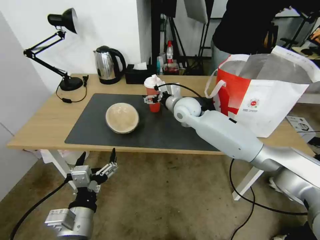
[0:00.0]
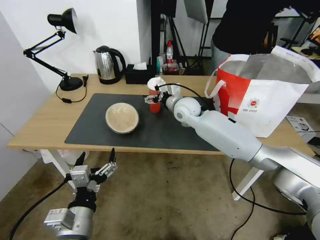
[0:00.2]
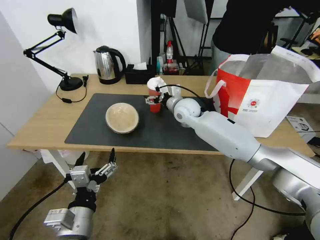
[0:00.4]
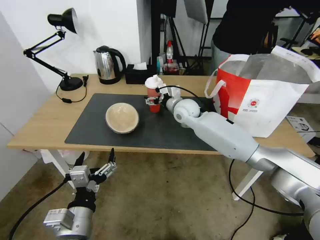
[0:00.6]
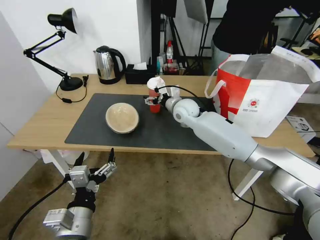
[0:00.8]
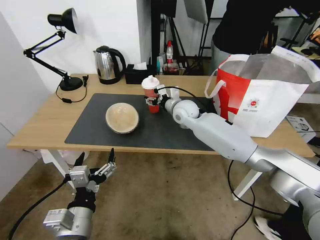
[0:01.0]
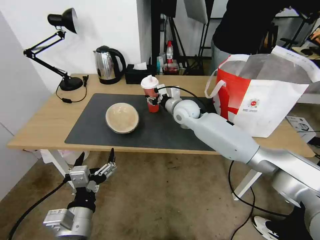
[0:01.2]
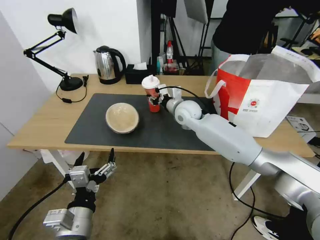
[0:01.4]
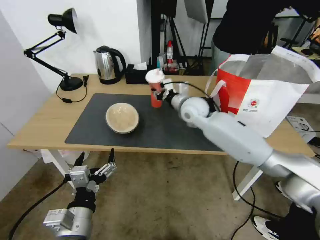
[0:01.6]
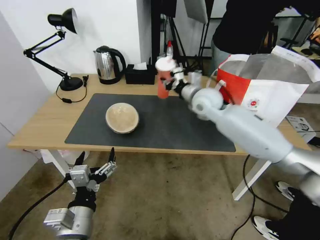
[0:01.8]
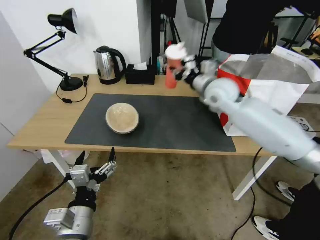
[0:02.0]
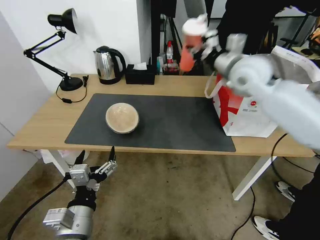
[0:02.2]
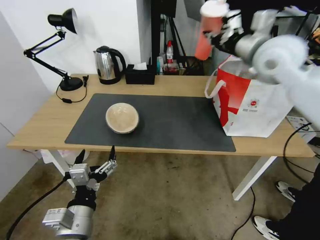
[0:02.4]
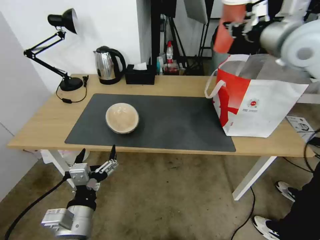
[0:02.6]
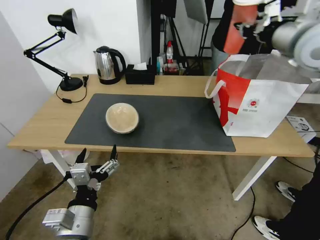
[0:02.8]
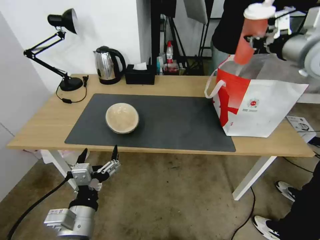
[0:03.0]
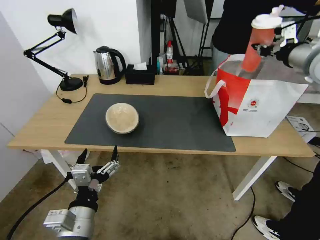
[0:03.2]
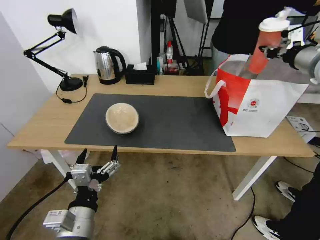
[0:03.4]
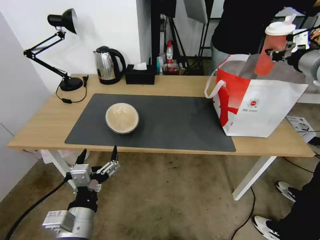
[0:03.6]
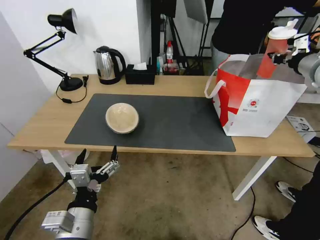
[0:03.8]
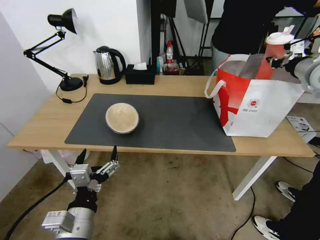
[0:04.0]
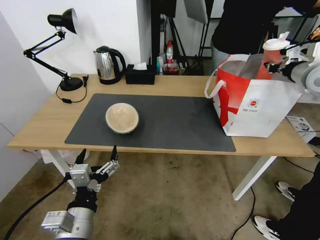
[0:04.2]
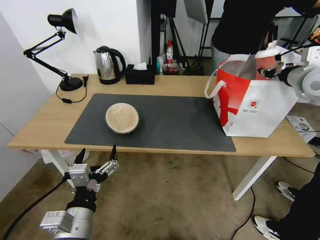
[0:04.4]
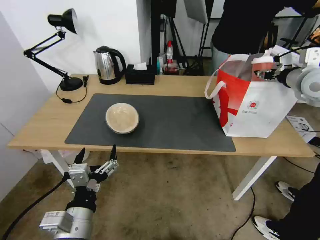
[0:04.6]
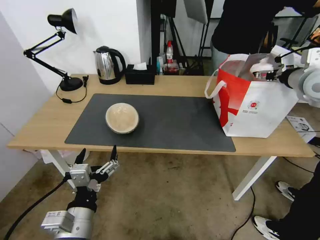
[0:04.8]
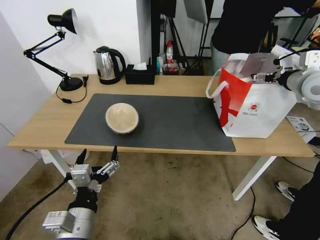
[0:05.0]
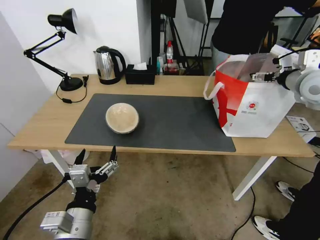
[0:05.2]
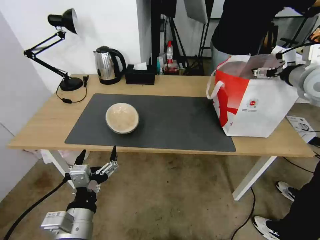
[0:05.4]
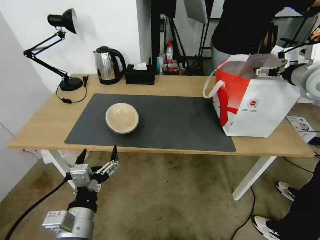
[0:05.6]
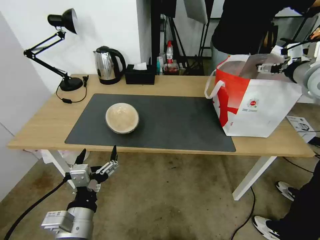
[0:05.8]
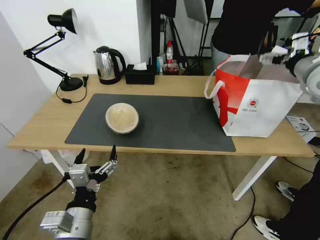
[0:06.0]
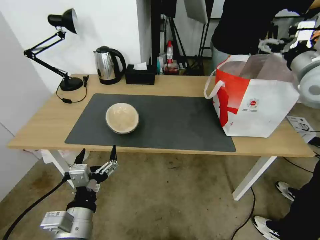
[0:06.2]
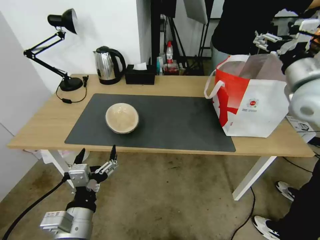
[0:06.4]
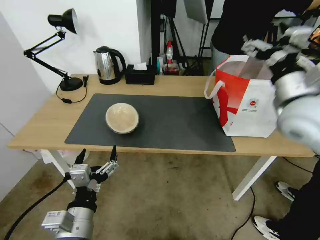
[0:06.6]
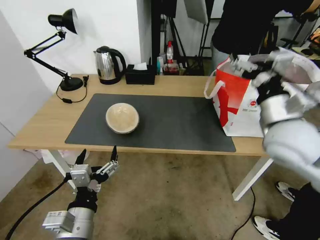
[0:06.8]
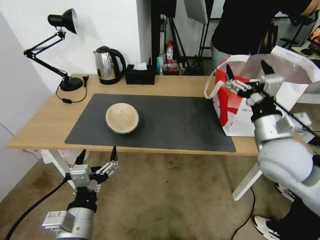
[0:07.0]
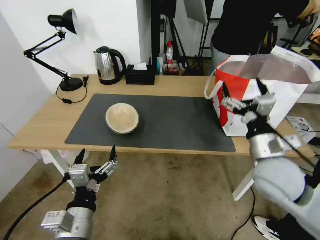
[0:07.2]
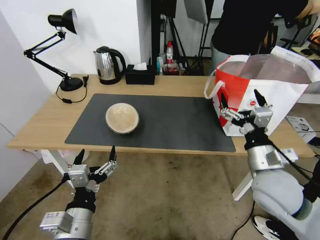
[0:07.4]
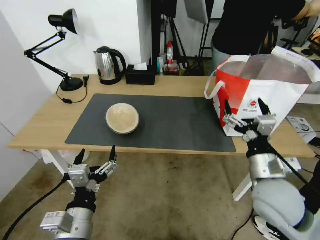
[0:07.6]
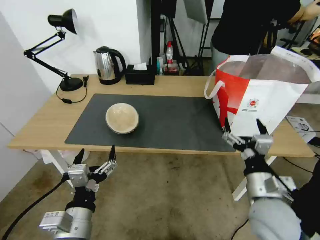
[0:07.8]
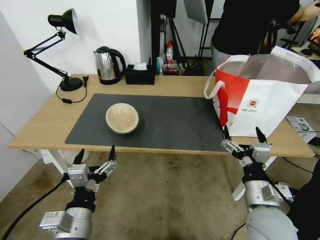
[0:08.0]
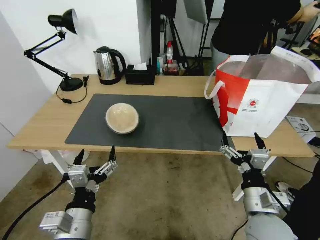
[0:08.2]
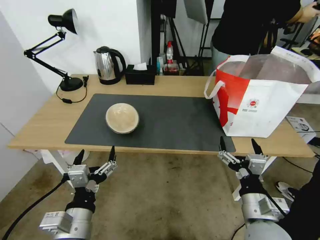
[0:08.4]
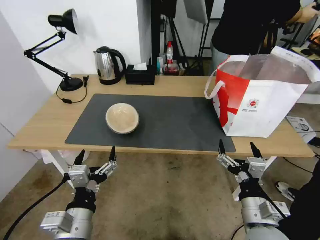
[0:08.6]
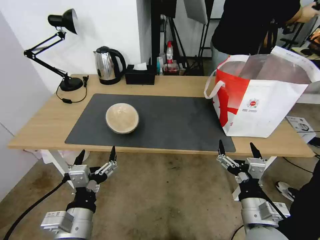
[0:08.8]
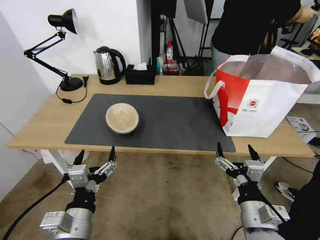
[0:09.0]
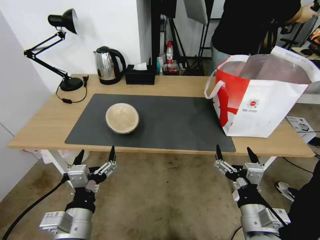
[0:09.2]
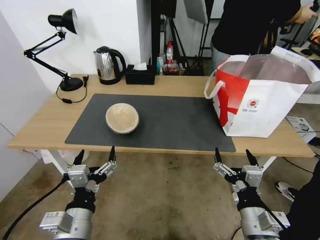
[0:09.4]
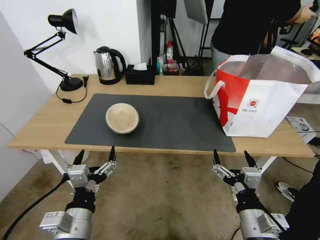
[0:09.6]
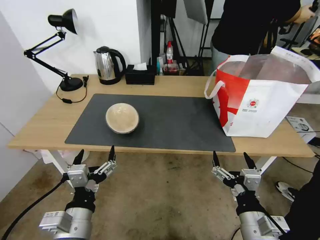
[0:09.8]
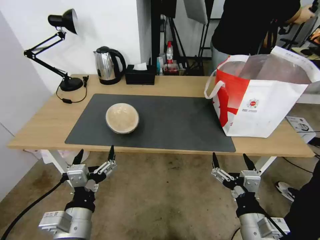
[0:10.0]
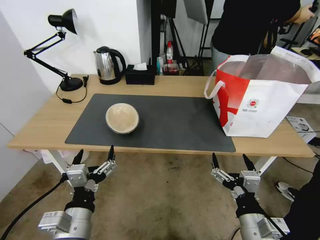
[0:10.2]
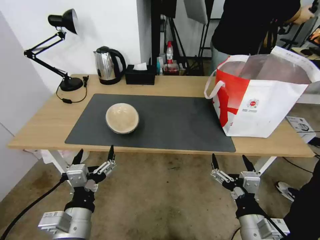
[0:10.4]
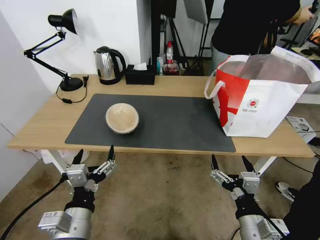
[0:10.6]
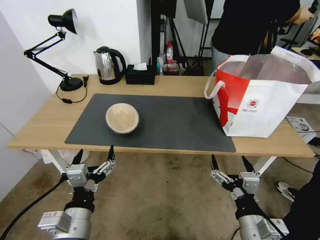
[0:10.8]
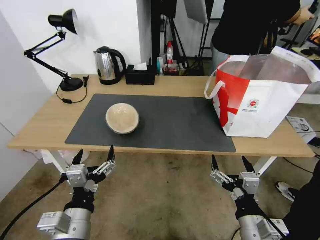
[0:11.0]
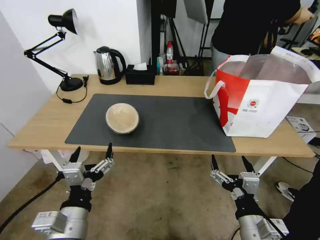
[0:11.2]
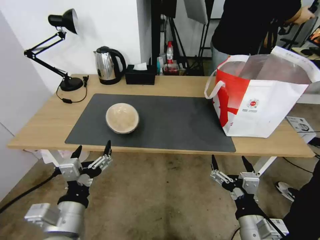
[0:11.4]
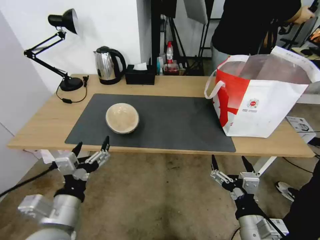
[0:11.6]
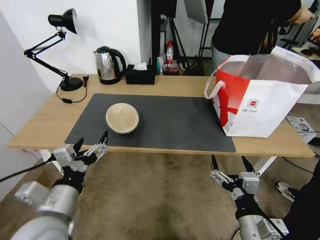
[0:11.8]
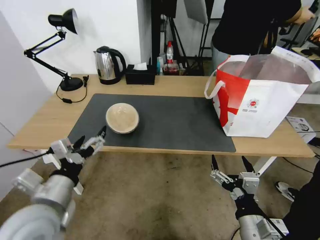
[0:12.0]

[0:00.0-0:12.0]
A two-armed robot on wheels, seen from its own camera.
Task of the whole recording: Pick up the trash from the table and place it into the takeout bag.
0:00.0 to 0:01.6: The right gripper closes.
0:01.6 to 0:03.0: The right gripper shifts approximately 35 cm to the right and upward.
0:03.0 to 0:04.4: The right gripper shifts roughly 10 cm downward and to the right.
0:04.4 to 0:06.0: The right gripper opens.
0:06.0 to 0:07.6: The right gripper goes about 35 cm downward, backward and to the left.
0:07.6 to 0:09.0: The right gripper moves backward and downward, about 10 cm.
0:09.0 to 0:10.4: The grippers make only small movements.
0:10.4 to 0:12.0: The left gripper goes about 10 cm upward, to the left and forward.

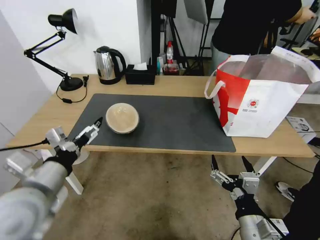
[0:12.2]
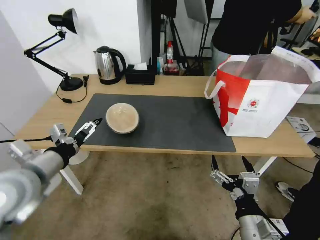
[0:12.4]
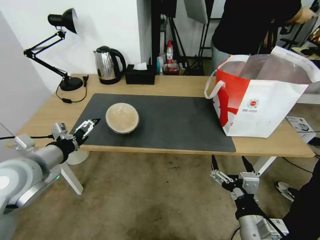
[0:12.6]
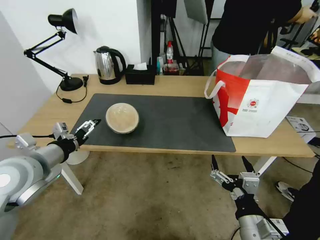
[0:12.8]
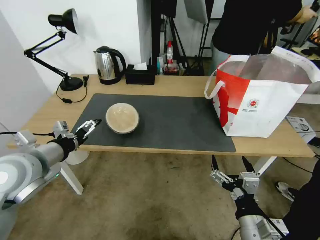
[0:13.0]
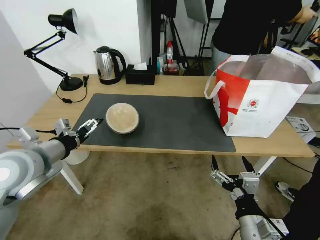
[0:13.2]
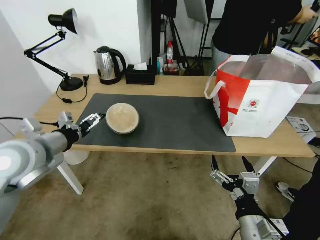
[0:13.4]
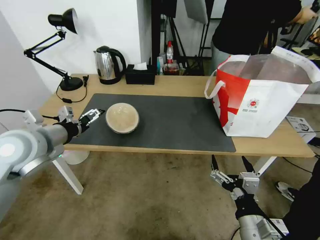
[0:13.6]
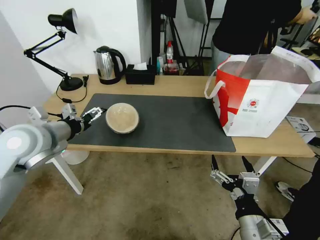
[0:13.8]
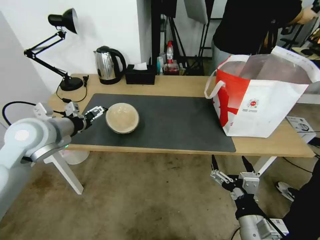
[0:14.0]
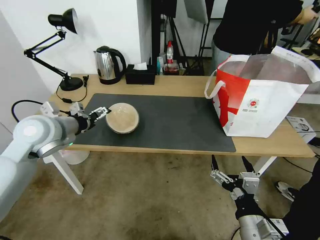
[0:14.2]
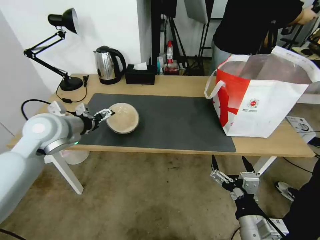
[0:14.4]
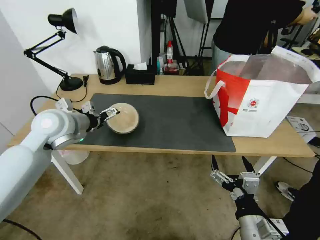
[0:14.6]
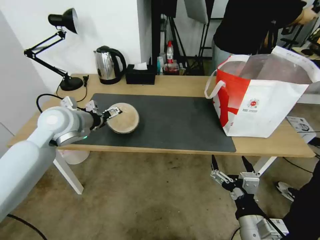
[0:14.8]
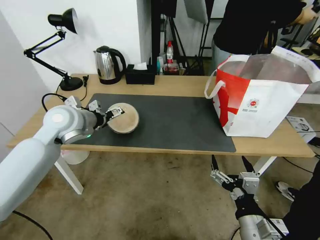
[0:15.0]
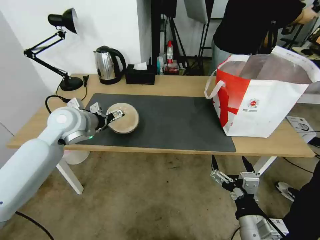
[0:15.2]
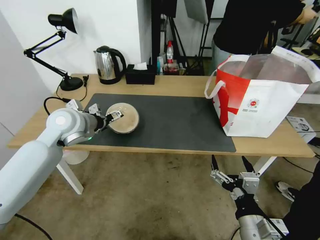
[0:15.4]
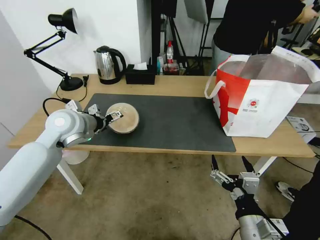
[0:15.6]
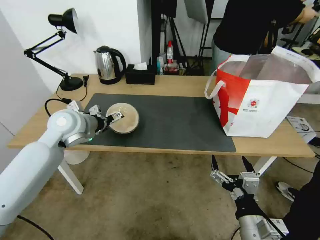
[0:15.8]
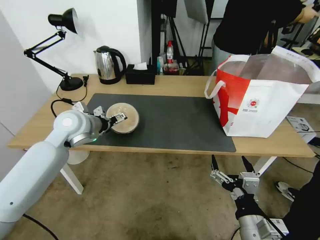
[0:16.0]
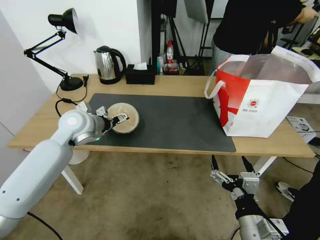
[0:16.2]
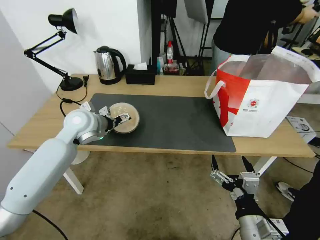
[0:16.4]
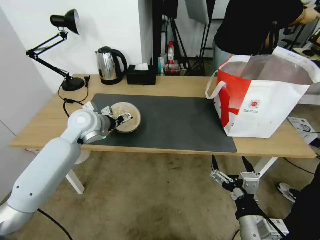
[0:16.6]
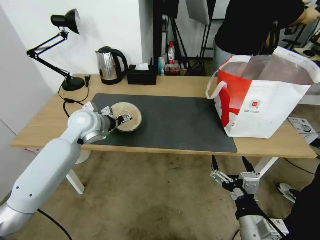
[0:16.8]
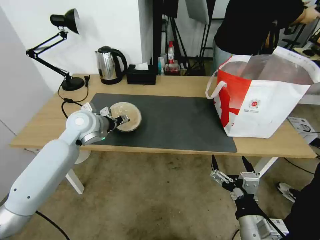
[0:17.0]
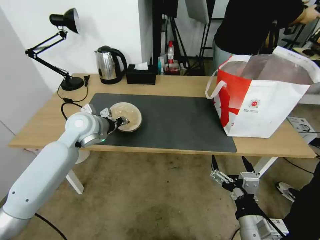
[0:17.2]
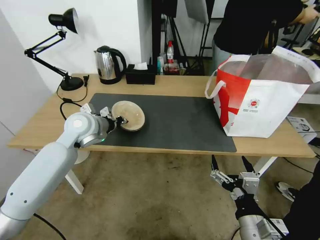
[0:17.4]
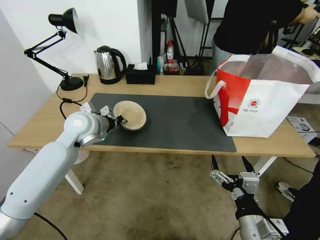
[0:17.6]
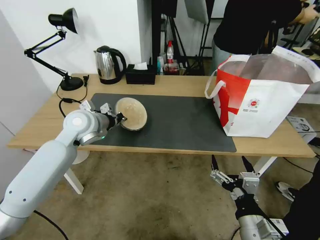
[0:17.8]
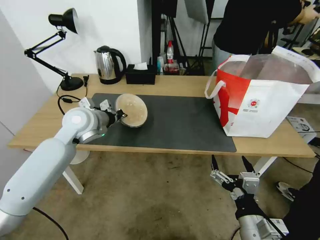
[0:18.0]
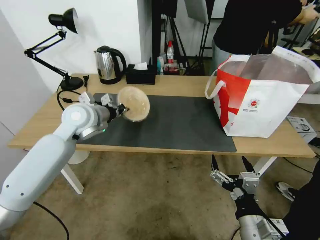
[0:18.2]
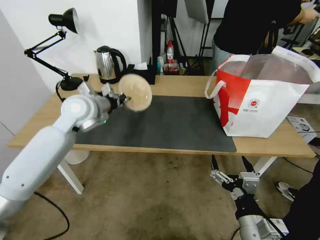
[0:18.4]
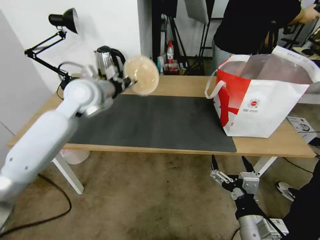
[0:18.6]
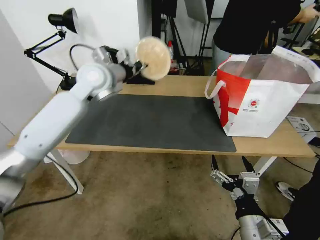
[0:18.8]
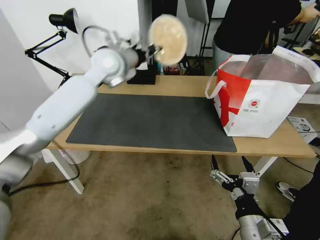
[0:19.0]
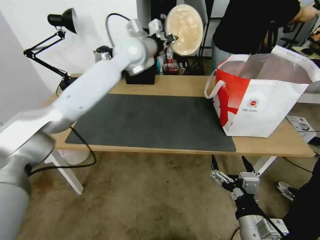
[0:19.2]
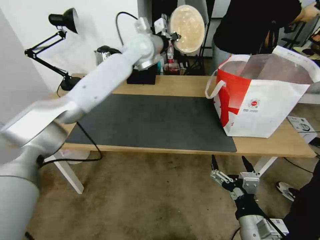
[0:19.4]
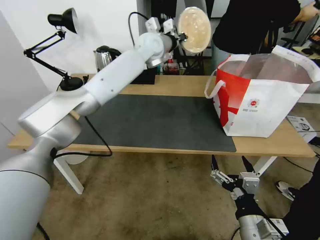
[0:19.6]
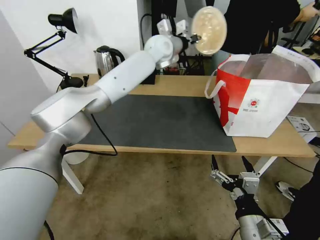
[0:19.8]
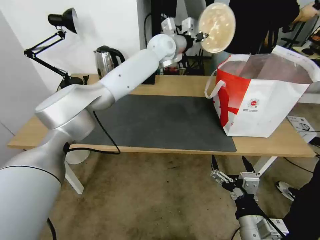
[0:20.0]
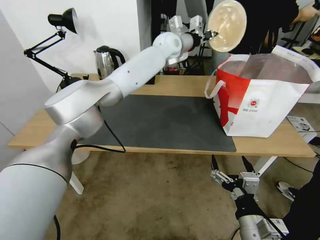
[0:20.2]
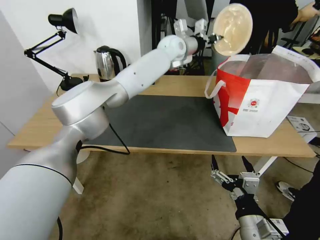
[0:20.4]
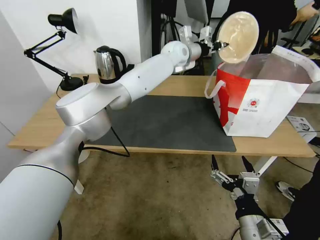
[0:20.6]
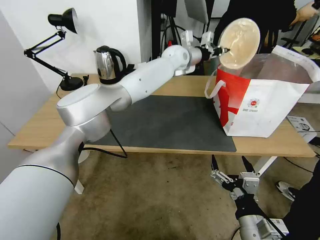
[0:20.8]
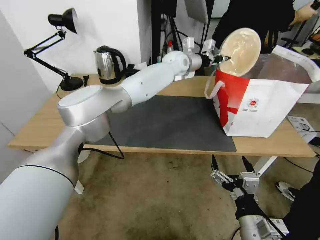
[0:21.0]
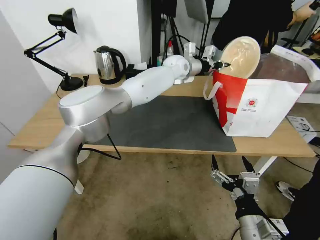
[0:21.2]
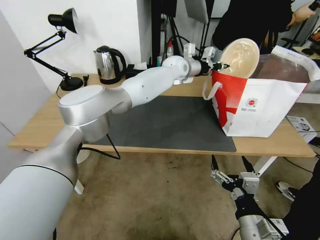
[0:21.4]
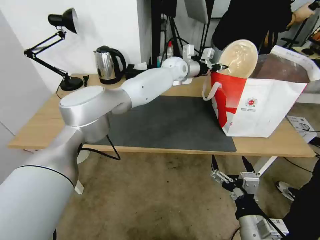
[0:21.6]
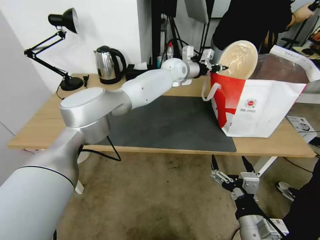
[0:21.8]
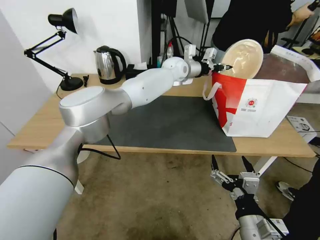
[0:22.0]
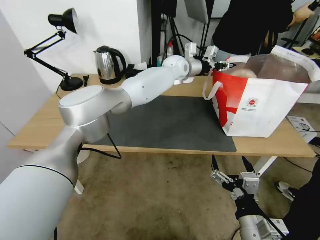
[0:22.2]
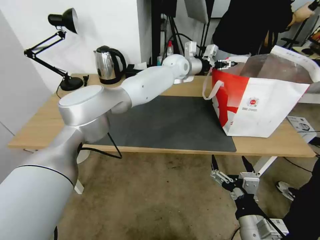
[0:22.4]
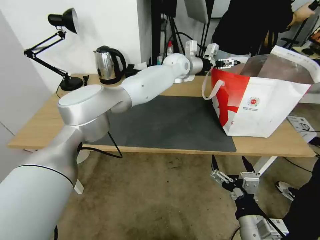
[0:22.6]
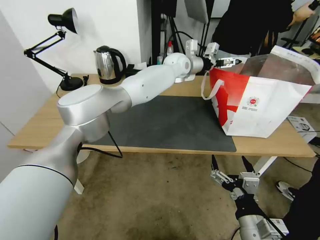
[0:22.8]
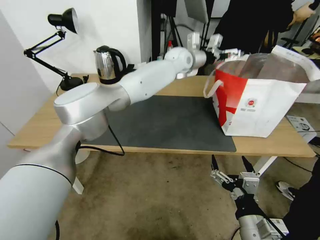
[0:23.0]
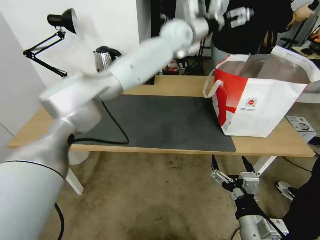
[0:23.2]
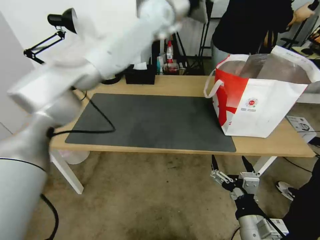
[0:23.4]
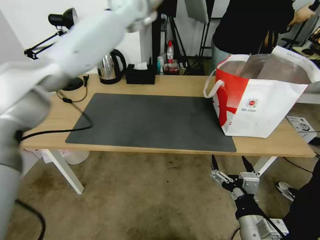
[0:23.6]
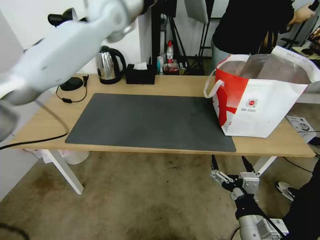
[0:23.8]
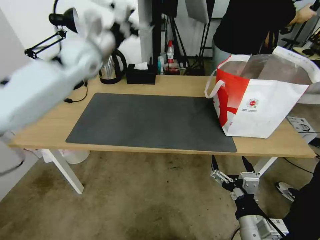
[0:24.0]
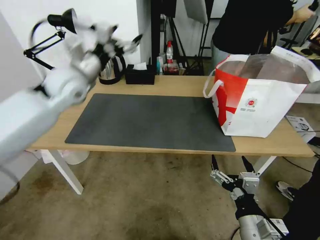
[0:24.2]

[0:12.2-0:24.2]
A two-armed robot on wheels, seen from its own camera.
Task of the whole recording: Pick up the trash from the table and place it into the takeout bag.
0:12.2 to 0:13.8: The left gripper heads forward, covering about 15 cm.
0:13.8 to 0:15.2: The left gripper is displaced forward by about 10 cm.
0:15.2 to 0:16.6: The left gripper moves some 5 cm.
0:16.6 to 0:18.2: The left gripper closes.
0:18.2 to 0:19.8: The left gripper is displaced to the right, forward and upward by about 35 cm.
0:19.8 to 0:21.2: The left gripper travels downward and to the right by approximately 10 cm.
0:21.2 to 0:22.6: The left gripper opens its fingers.
0:22.6 to 0:24.2: The left gripper travels to the left and backward by roughly 35 cm.
